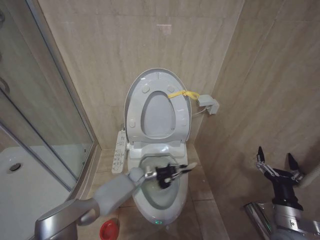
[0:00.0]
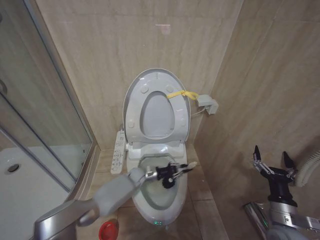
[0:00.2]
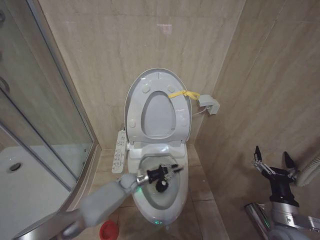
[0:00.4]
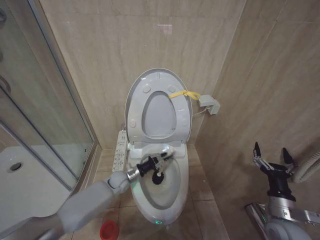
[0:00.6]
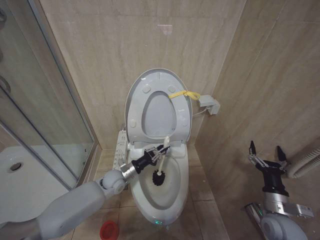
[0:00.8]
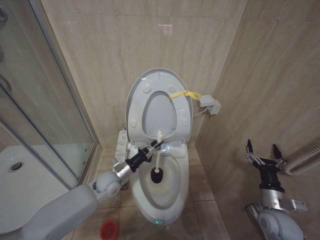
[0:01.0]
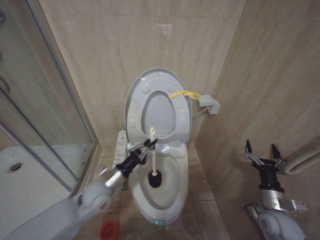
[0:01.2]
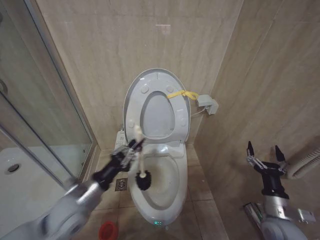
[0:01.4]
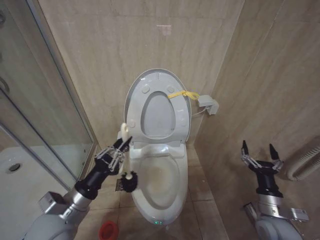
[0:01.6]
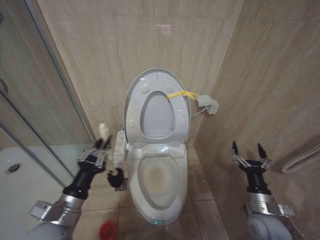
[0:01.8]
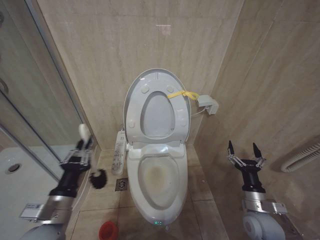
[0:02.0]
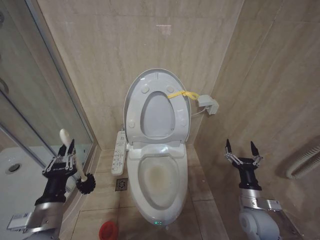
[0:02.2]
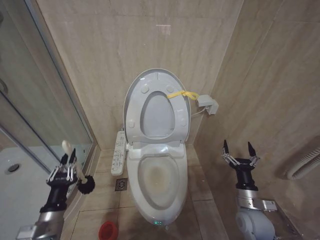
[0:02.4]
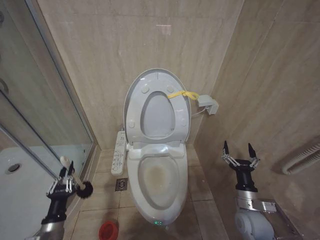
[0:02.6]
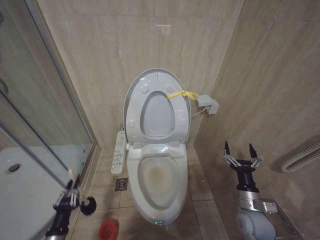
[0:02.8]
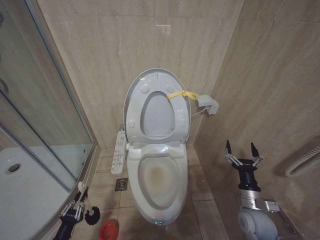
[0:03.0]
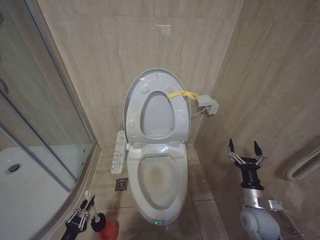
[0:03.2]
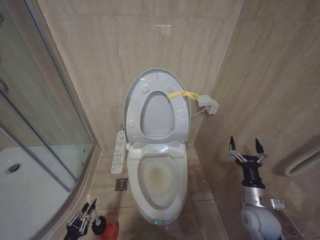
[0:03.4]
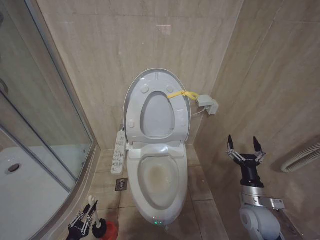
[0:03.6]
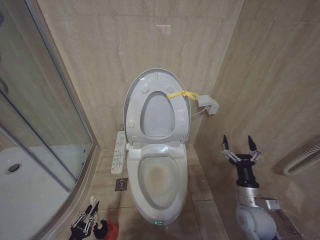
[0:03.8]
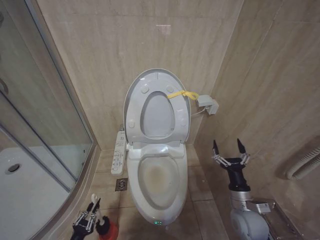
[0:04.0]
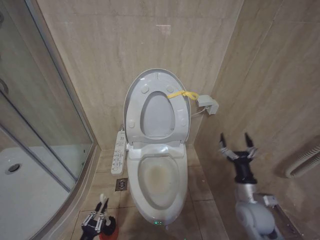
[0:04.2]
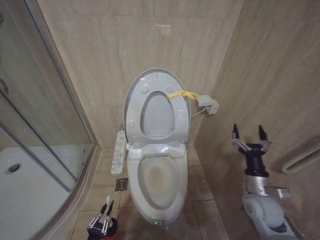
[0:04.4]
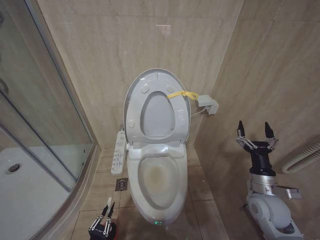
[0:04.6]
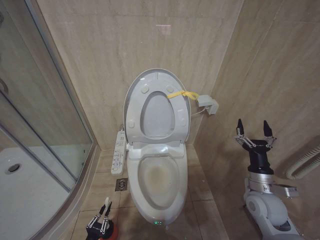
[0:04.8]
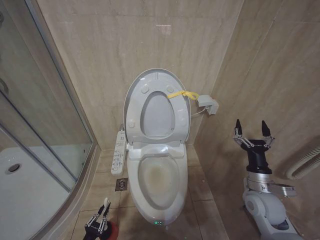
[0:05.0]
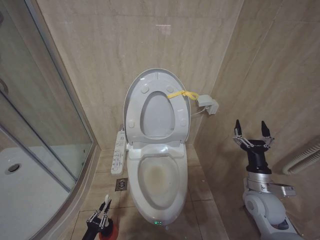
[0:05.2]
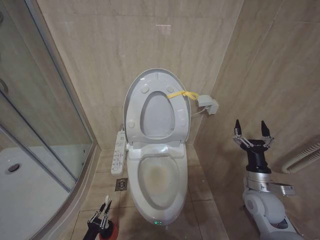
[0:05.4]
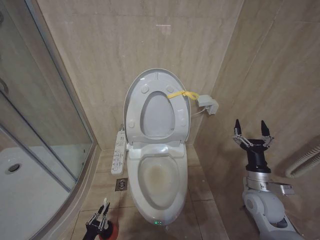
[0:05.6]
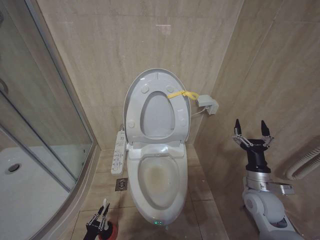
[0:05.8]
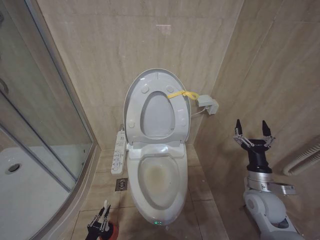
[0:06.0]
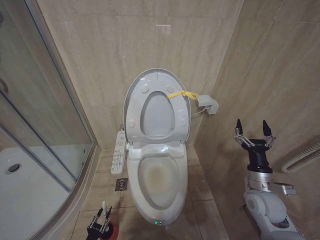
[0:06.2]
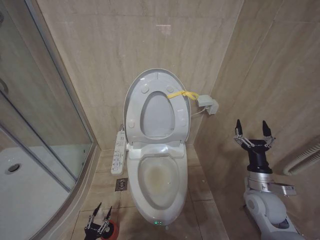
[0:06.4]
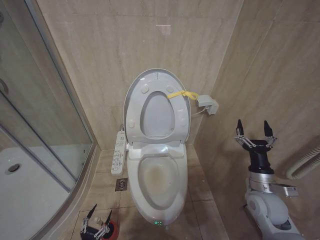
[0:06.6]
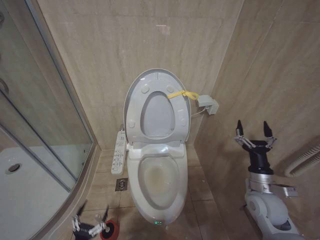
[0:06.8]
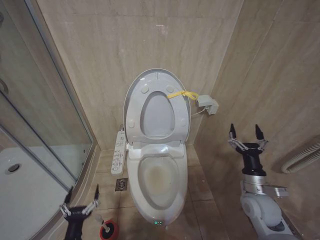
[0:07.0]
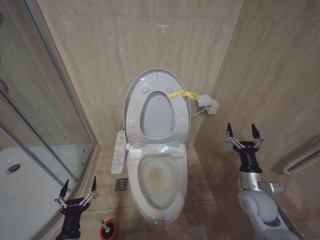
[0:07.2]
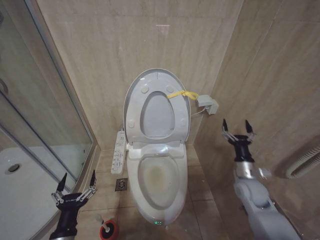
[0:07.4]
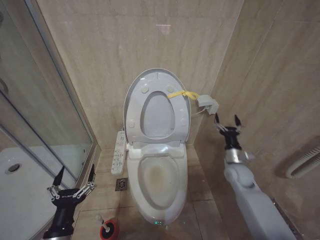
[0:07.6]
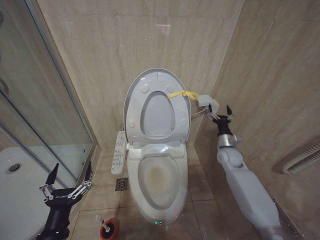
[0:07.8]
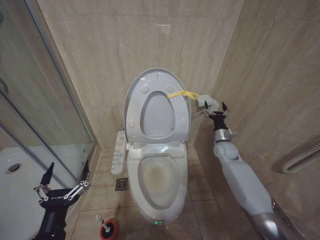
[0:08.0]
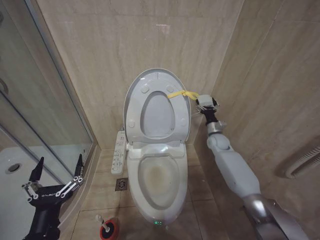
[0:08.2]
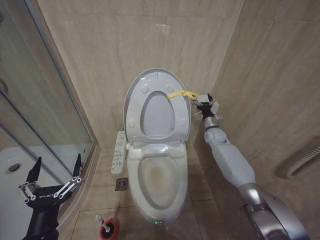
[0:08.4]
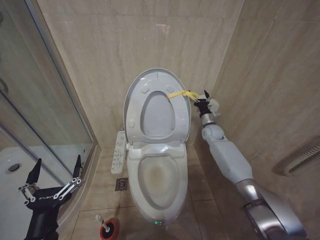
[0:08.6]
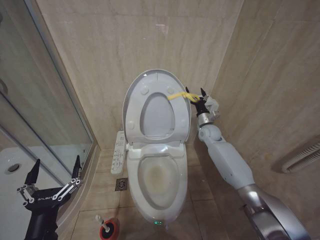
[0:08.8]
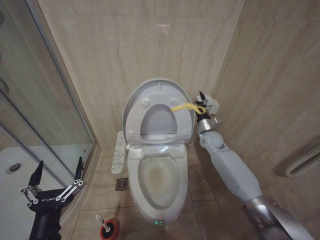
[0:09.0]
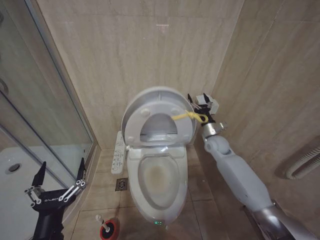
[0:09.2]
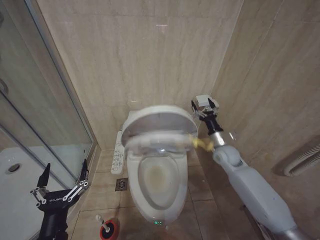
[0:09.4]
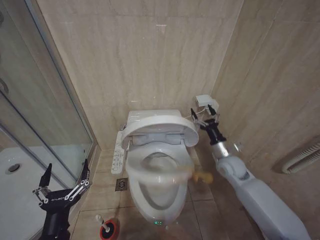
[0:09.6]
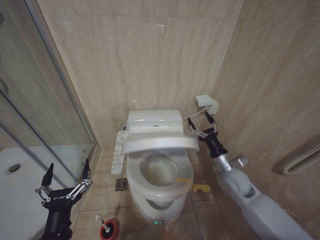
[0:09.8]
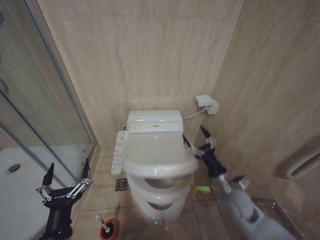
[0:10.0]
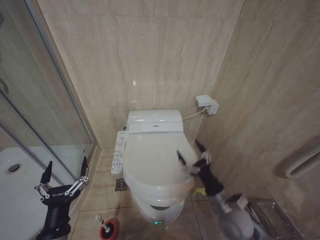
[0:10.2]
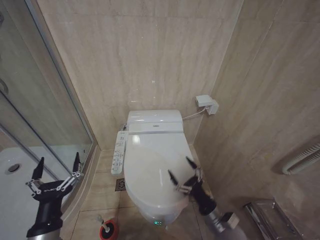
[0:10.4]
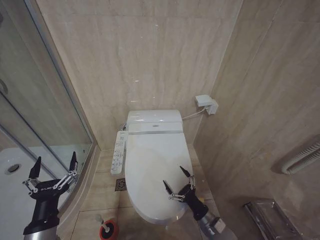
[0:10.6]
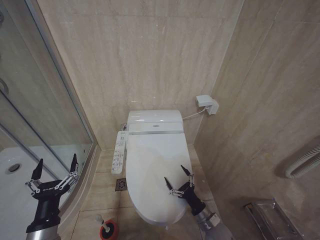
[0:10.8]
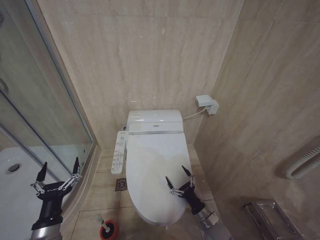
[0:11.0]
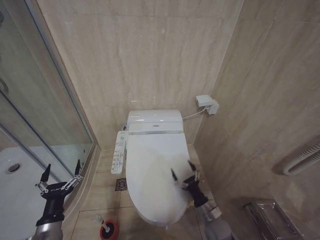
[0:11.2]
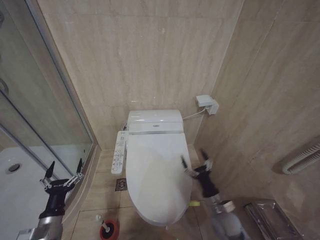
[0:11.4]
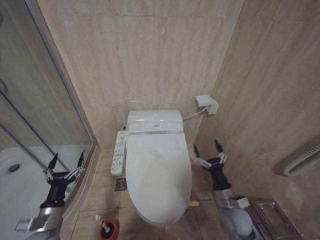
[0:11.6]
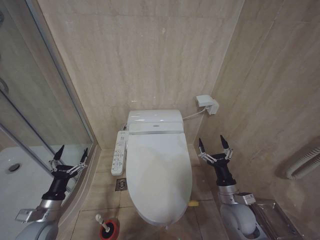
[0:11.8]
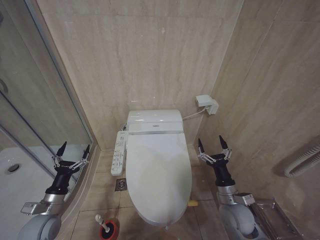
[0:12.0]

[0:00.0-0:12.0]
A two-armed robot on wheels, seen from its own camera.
Task of the whole recording: Open the toilet lid, clean the toilet bowl with a toilet brush, close the toilet lid, and flush.
0:00.0 to 0:01.6: The left gripper is displaced backward, upward and to the left by some 40 cm.
0:01.6 to 0:03.0: The left gripper heads downward and to the left, covering approximately 30 cm; the right gripper ends up some 5 cm from where it was.
0:03.0 to 0:04.4: The right gripper heads upward, covering about 5 cm, while the left gripper moves to the right and downward, approximately 10 cm.
0:04.4 to 0:06.0: The left gripper goes approximately 10 cm downward.
0:06.0 to 0:07.6: The left gripper moves upward, about 30 cm, and opens its fingers, while the right gripper moves forward, some 10 cm.
0:07.6 to 0:09.0: The right gripper moves forward, to the left and upward, roughly 20 cm; the left gripper is displaced upward by some 5 cm.
0:09.0 to 0:10.4: The right gripper is displaced backward and downward by some 35 cm.
0:10.4 to 0:12.0: The left gripper goes approximately 20 cm forward, to the left and downward; the right gripper reaches some 10 cm downward, then returns.

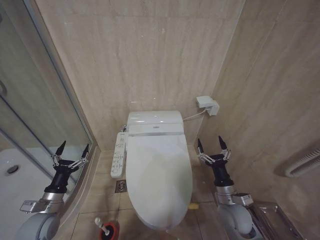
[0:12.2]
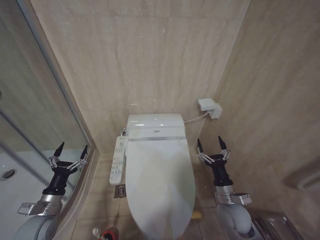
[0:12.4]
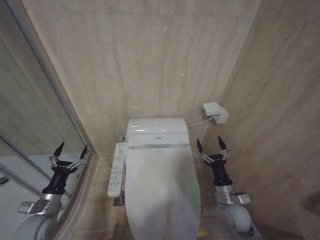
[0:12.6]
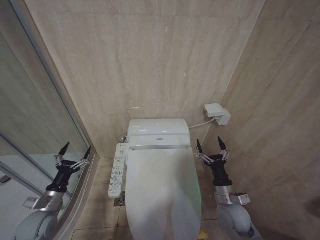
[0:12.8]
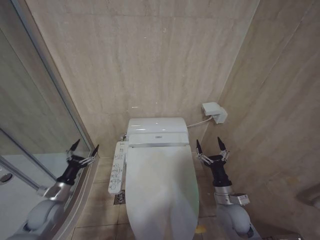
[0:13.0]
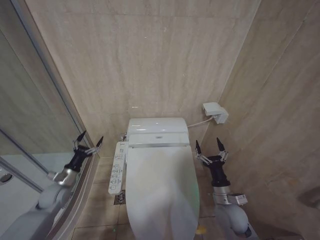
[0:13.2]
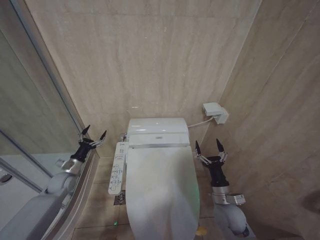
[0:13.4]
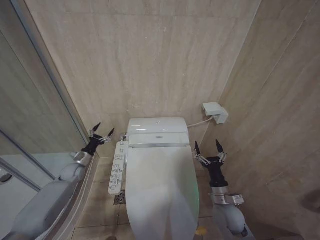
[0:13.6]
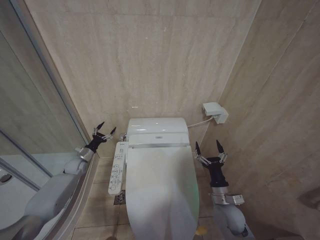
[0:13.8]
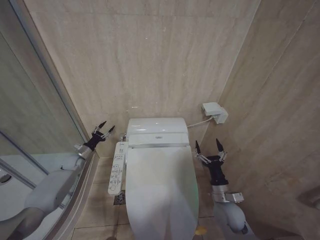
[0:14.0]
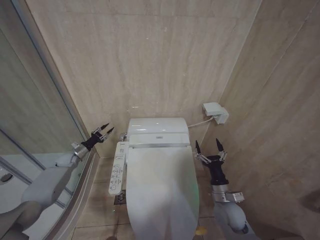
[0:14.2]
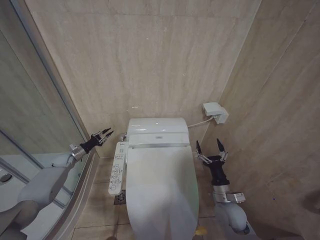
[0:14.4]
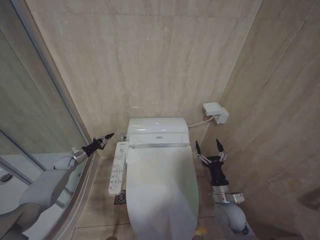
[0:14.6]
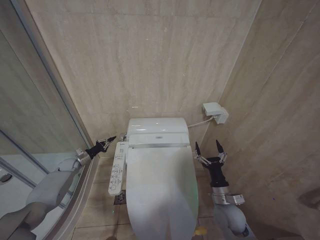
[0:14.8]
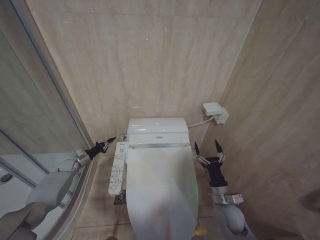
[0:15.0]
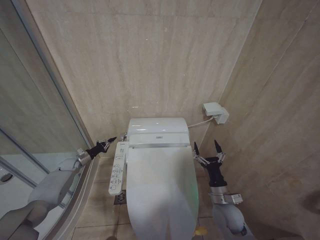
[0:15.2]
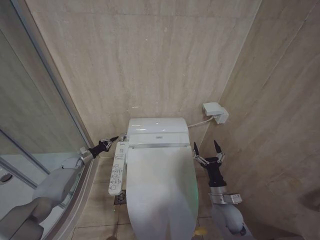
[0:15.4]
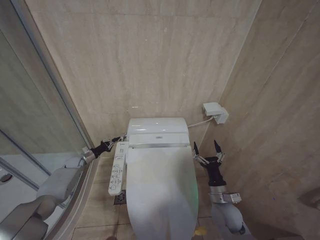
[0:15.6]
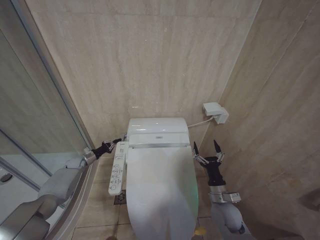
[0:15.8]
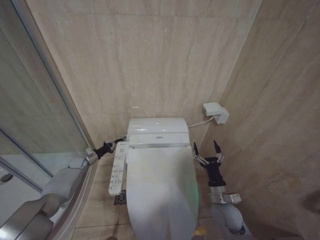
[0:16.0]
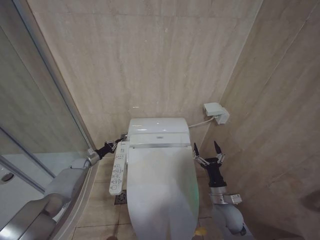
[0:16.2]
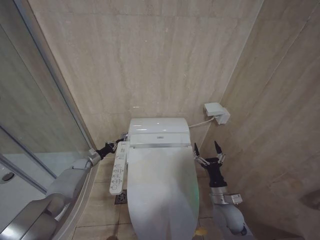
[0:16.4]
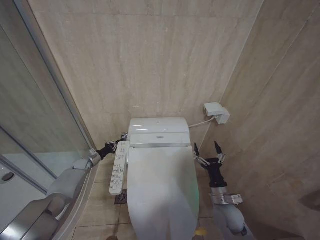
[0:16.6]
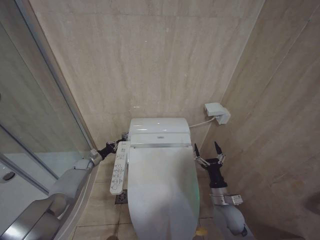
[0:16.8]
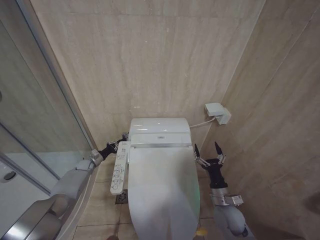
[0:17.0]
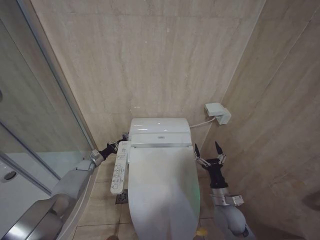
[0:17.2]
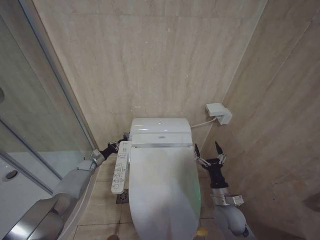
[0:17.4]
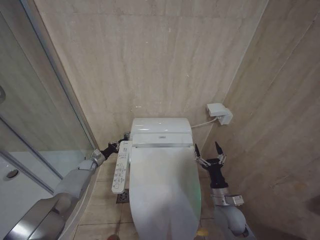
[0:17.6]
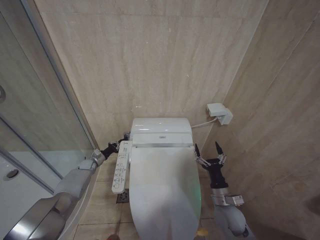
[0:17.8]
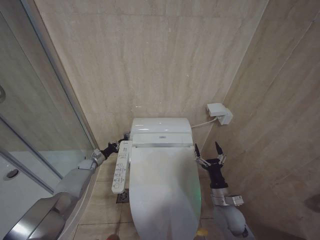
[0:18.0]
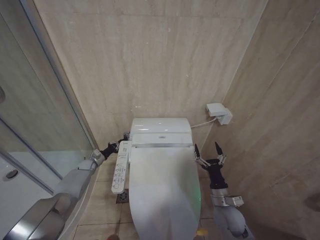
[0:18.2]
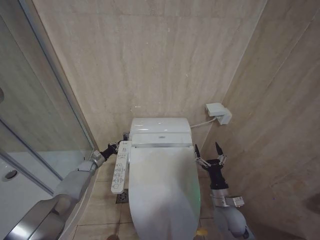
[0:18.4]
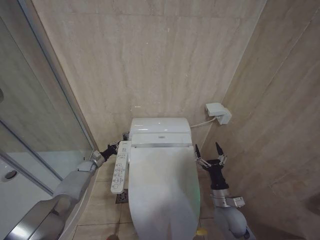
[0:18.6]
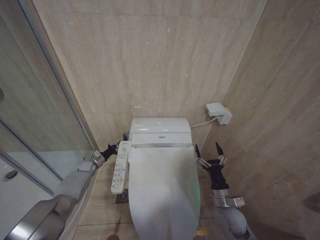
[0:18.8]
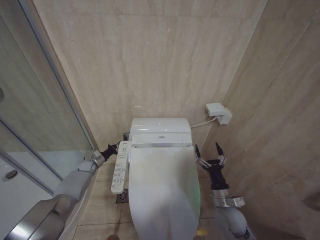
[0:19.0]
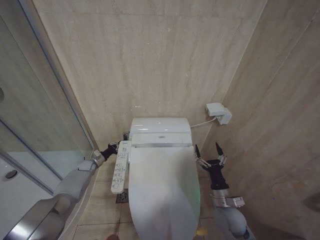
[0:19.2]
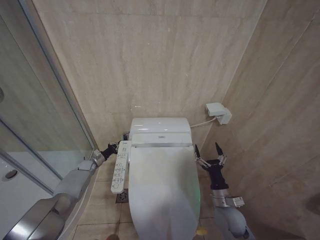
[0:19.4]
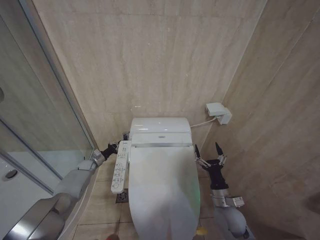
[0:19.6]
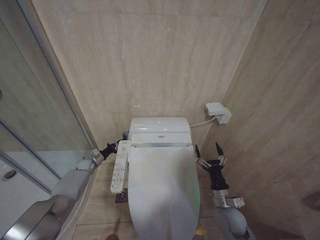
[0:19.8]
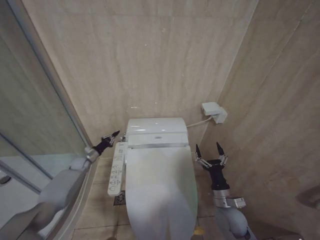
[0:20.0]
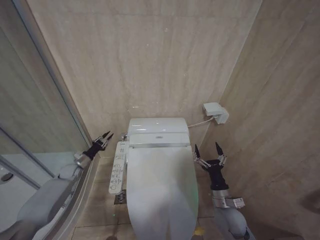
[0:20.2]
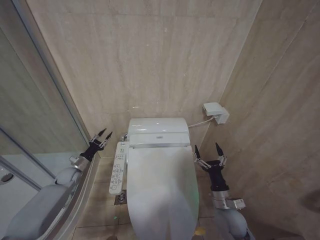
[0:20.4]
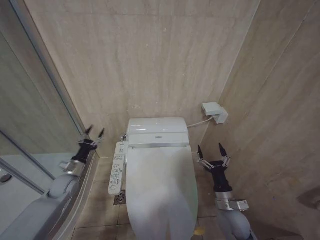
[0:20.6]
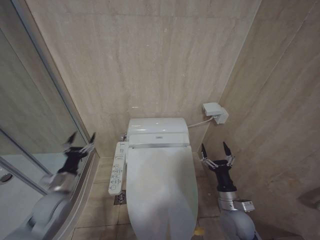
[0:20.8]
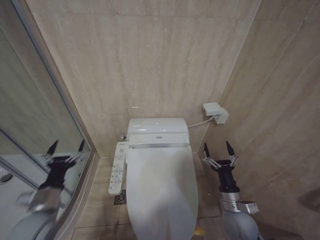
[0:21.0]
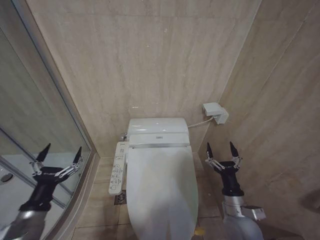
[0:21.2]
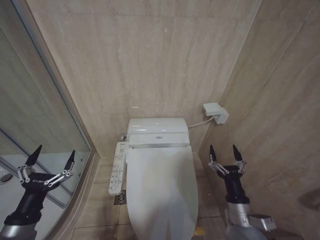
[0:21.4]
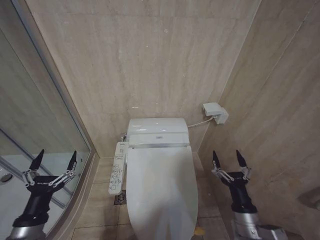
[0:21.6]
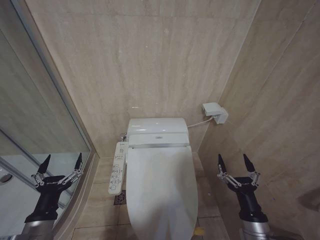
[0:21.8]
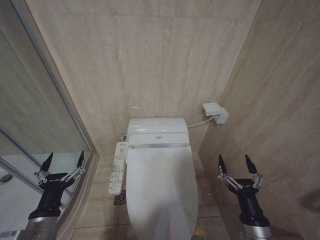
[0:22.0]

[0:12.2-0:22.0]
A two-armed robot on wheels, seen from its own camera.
Task of the whole recording: Open the toilet lid, clean the toilet bowl with a toilet brush, close the toilet lid, and flush.
0:12.2 to 0:13.6: The left gripper heads forward, covering some 20 cm.
0:13.6 to 0:15.0: The left gripper goes approximately 10 cm forward and to the left, and closes its fingers.
0:15.0 to 0:16.4: The left gripper shifts by about 5 cm.
0:16.4 to 0:17.8: The grippers make only small movements.
0:17.8 to 0:19.2: Both grippers stay put.
0:19.2 to 0:20.6: The left gripper shifts roughly 15 cm backward and upward, and opens up.
0:20.6 to 0:22.0: The right gripper moves backward and upward, roughly 15 cm, while the left gripper goes some 30 cm backward and upward, and opens its fingers.
